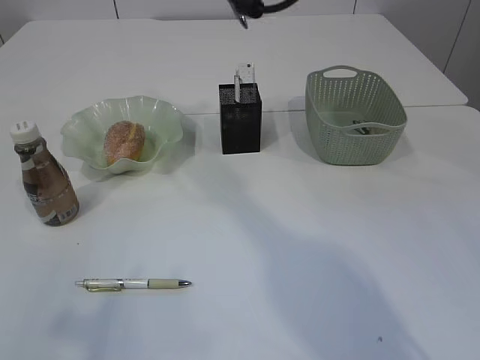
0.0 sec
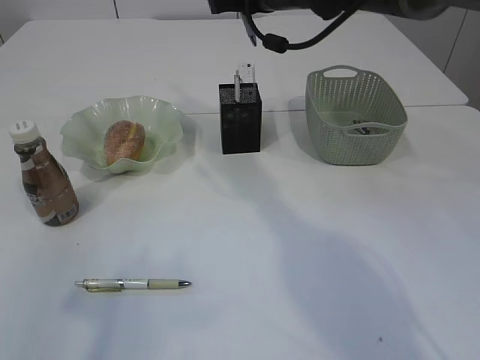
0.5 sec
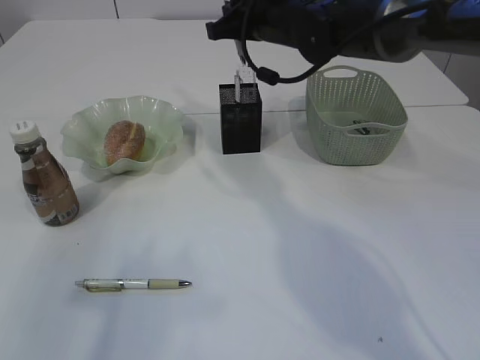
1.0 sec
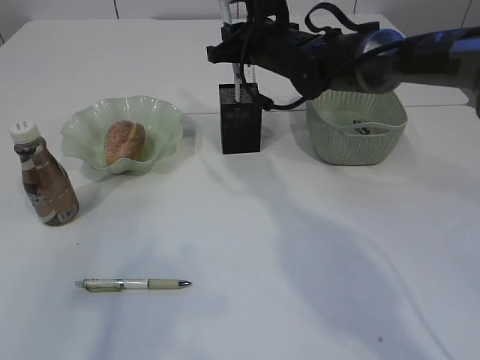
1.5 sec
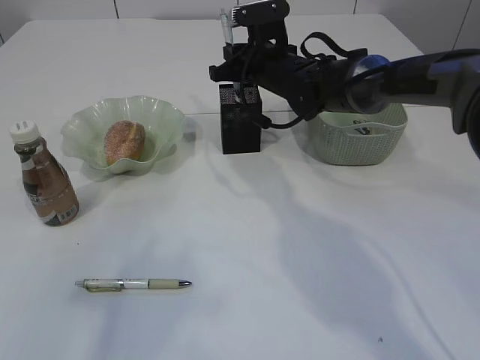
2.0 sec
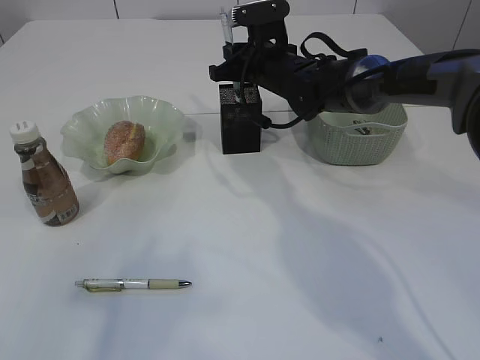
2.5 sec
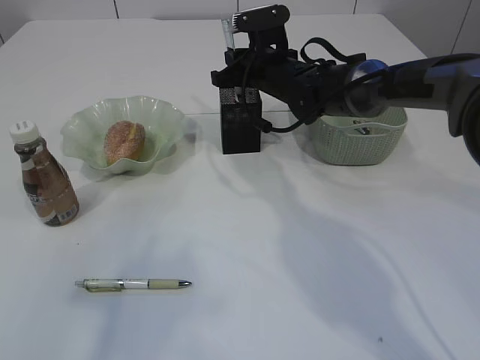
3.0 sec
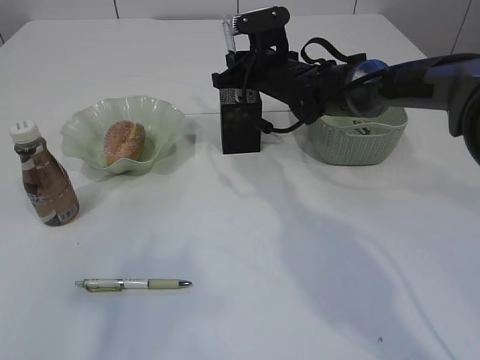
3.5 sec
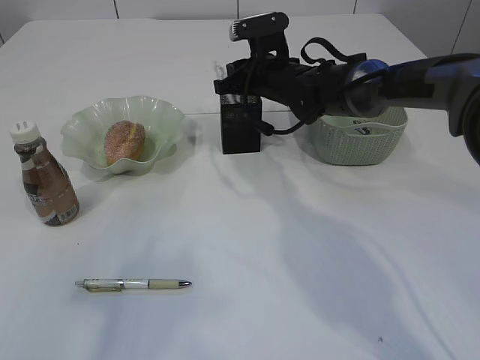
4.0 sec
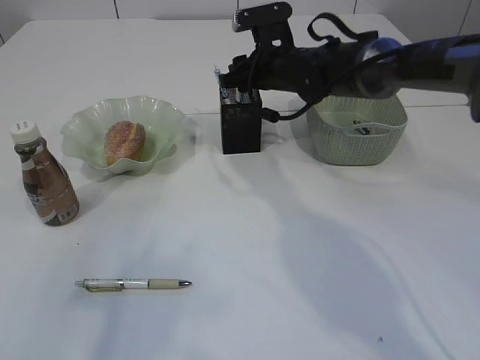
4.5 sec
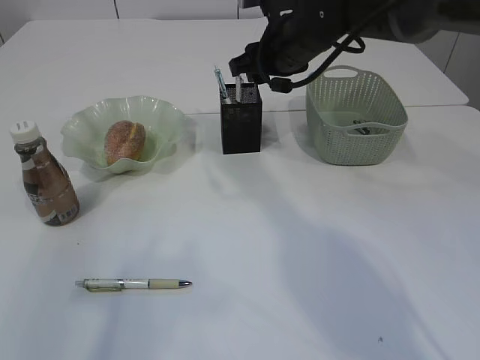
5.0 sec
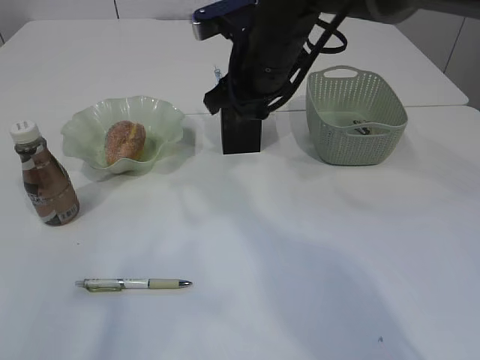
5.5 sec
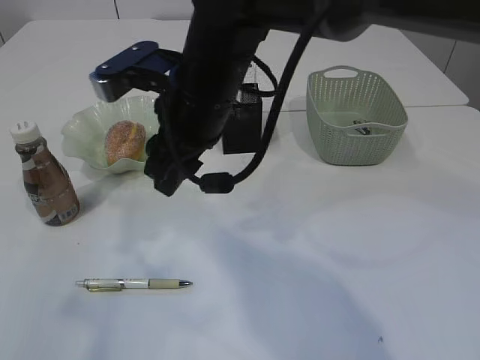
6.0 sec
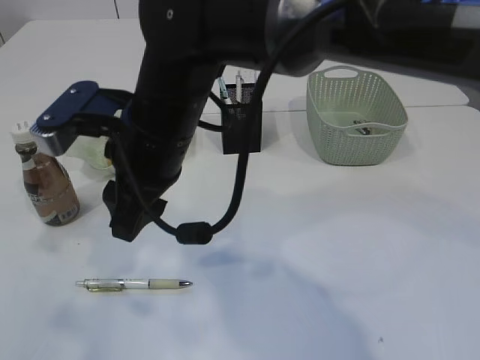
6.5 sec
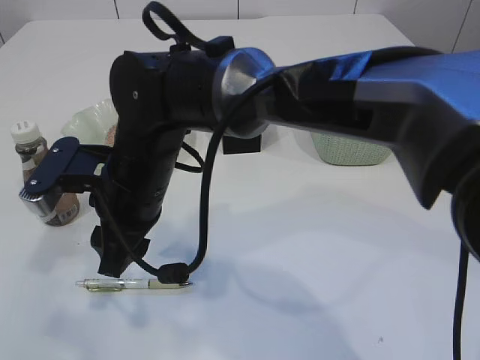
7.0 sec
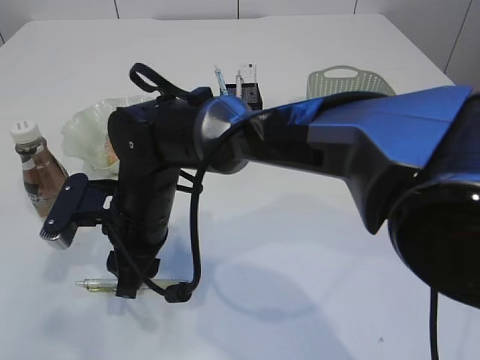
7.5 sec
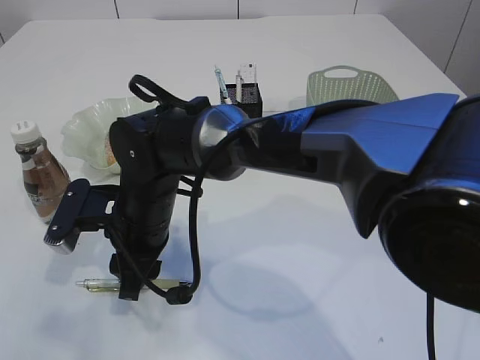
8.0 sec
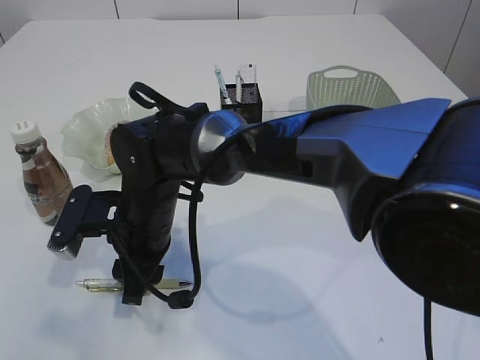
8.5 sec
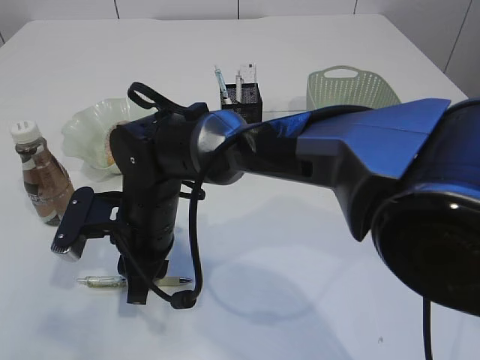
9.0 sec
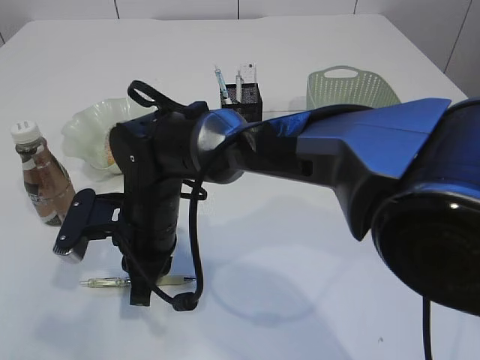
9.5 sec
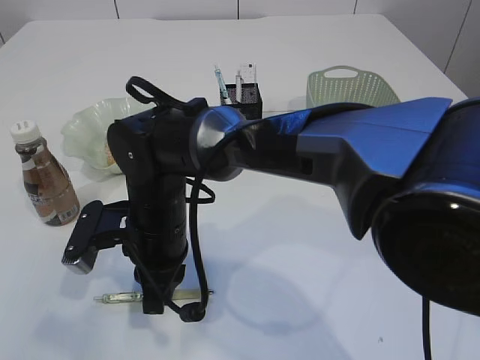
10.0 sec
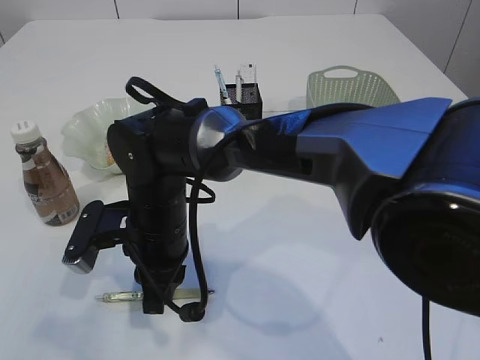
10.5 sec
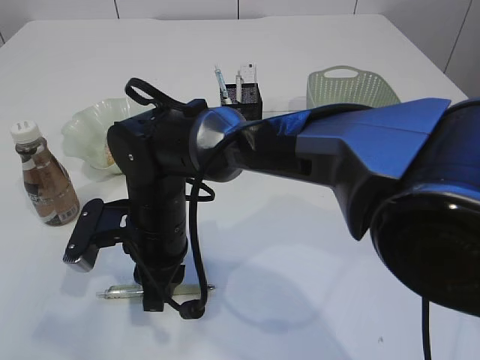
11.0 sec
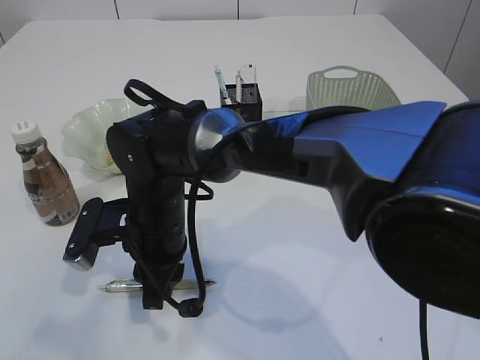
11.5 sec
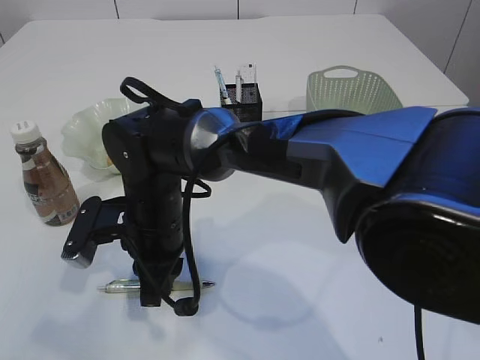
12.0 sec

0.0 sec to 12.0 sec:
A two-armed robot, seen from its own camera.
Step, 0.0 sec to 5.0 sec: Place the pen into the pen holder.
0.0 sec to 2.0 sec: The right gripper shifts approximately 20 cm downward and forward.
2.0 sec to 4.0 sec: The grippers move only a little.
4.0 sec to 6.0 sec: The right gripper is displaced backward, to the left and upward by roughly 20 cm.
6.0 sec to 8.0 sec: The right gripper travels downward and to the left by roughly 15 cm.
8.0 sec to 10.0 sec: The right gripper closes up.
10.0 sec to 12.0 sec: The two grippers keep their place.

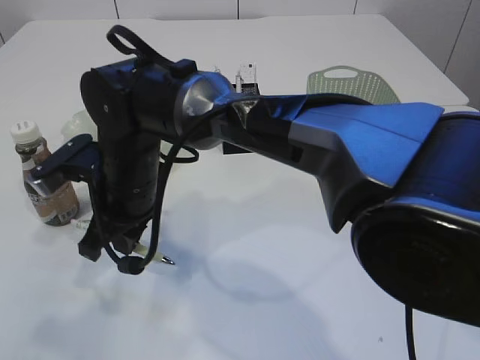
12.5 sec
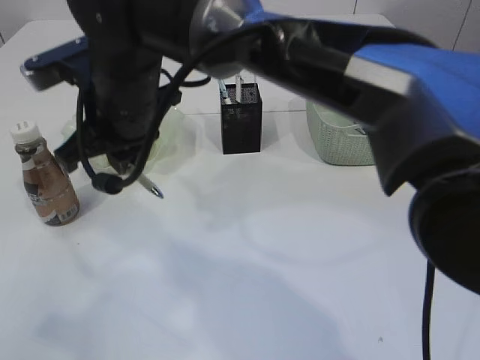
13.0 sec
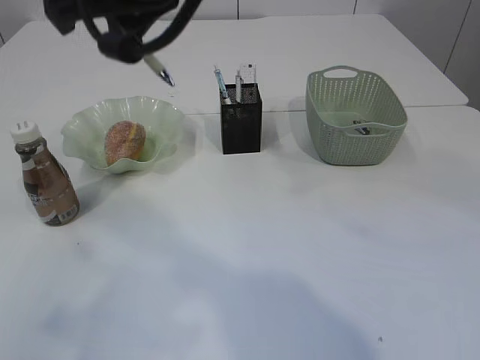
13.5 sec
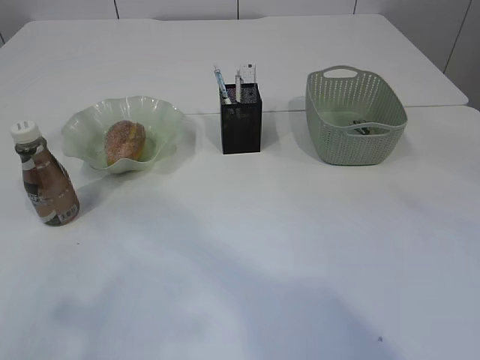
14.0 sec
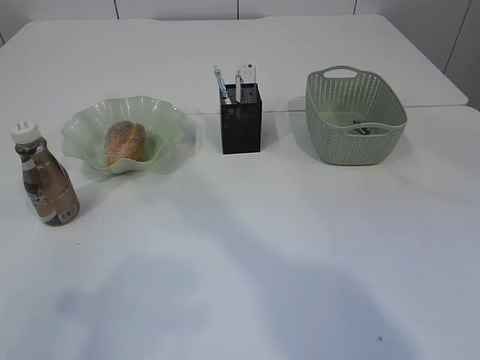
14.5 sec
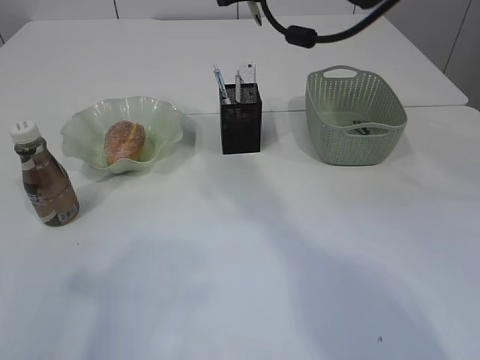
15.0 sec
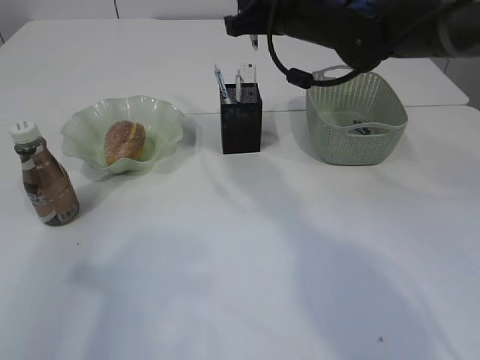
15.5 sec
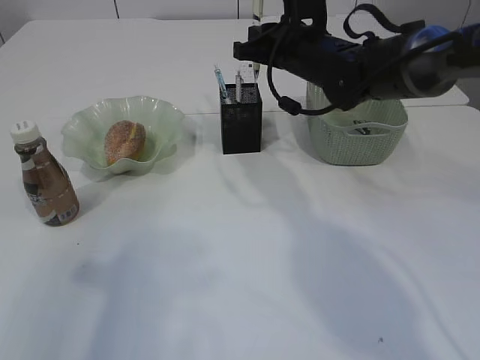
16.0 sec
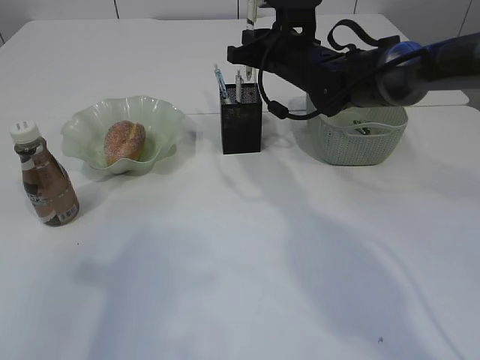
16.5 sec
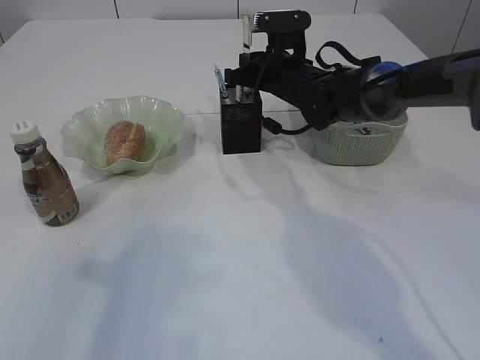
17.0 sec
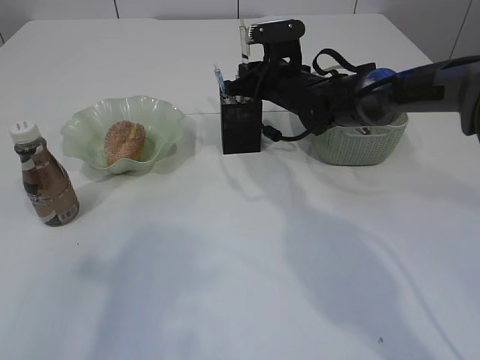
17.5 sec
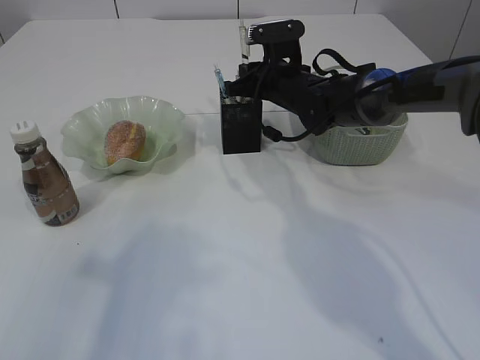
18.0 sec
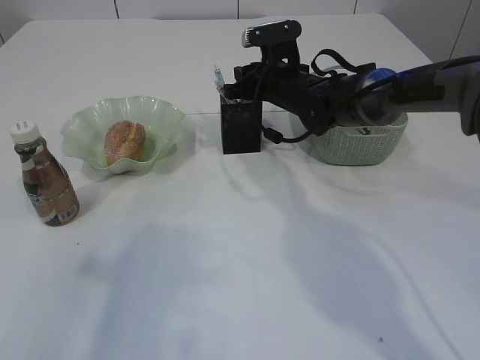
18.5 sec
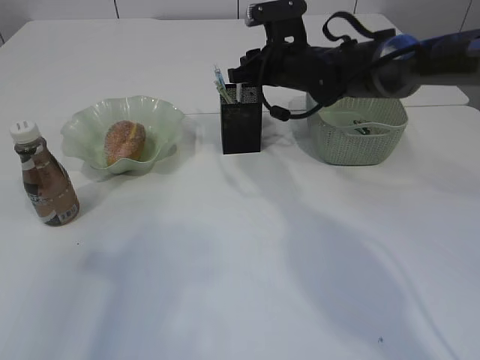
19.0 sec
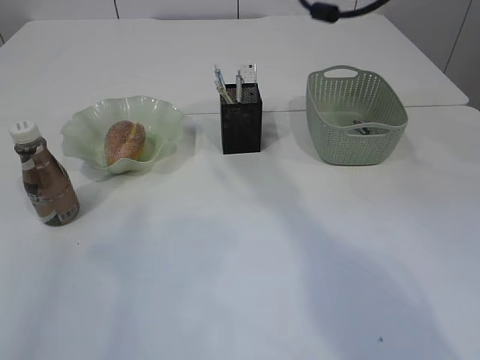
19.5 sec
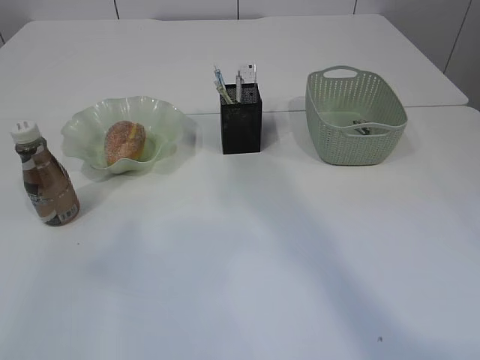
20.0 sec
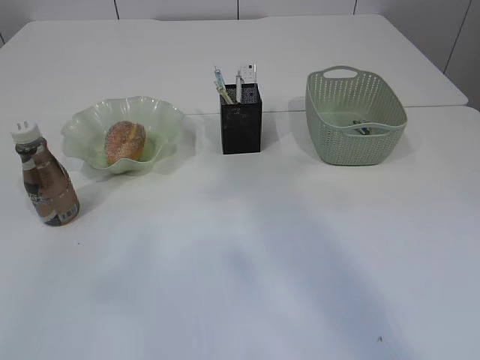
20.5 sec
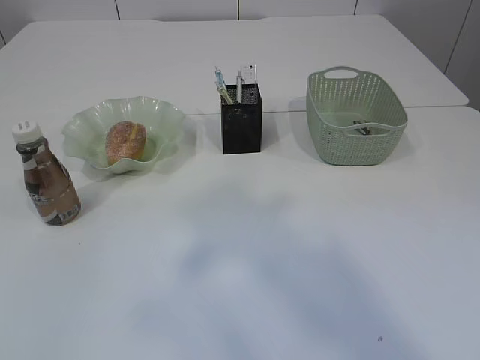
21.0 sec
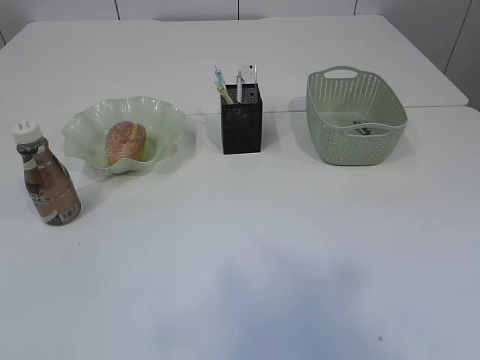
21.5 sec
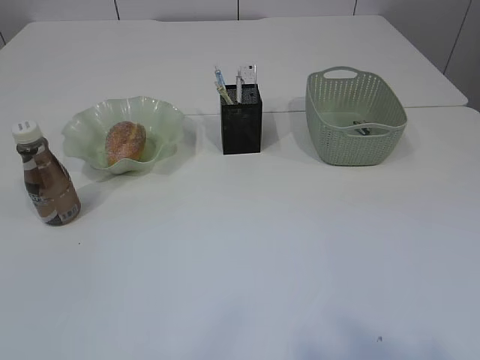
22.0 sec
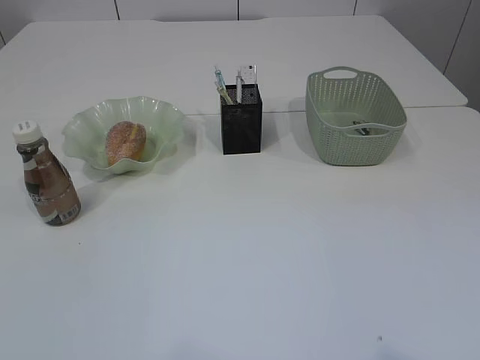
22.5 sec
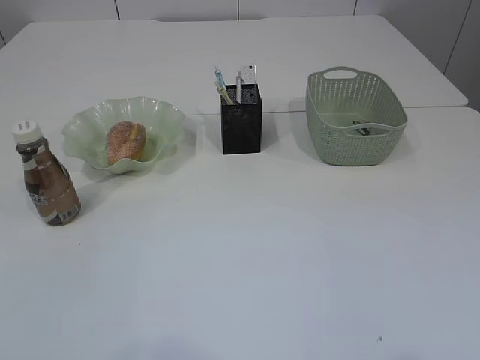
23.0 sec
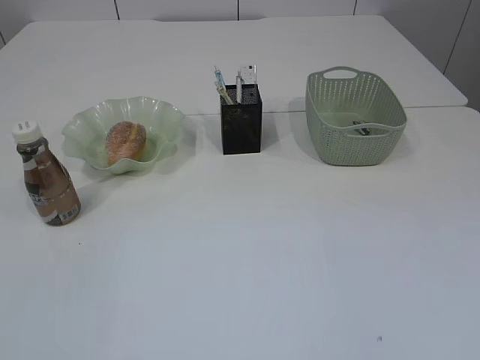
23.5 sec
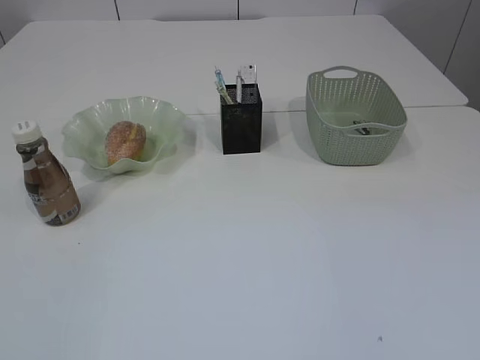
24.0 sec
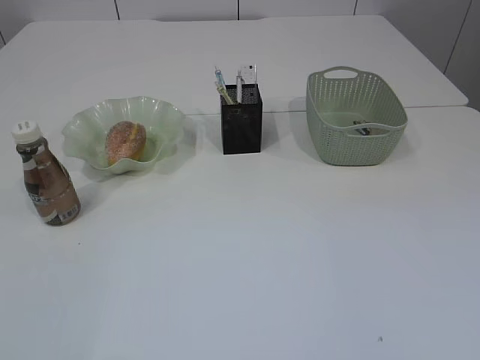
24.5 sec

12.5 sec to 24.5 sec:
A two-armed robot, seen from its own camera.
Step, 13.5 sec to 19.0 sec: Place the pen into the pen holder.
12.5 sec to 14.5 sec: The right gripper goes about 30 cm upward and to the right.
14.5 sec to 16.5 sec: The right gripper heads downward and forward, covering approximately 25 cm.
16.5 sec to 18.5 sec: The right gripper changes place by about 5 cm, and opens up.
18.5 sec to 20.5 sec: The right gripper goes roughly 50 cm upward and backward, while the left gripper heads upward and backward, covering roughly 20 cm, and opens its fingers.

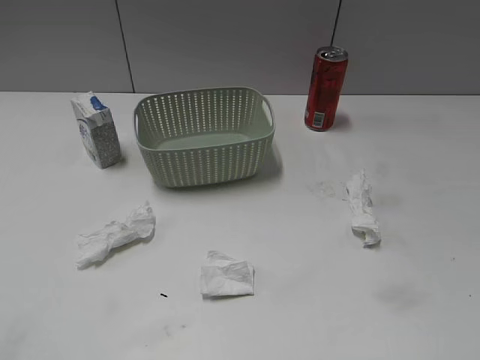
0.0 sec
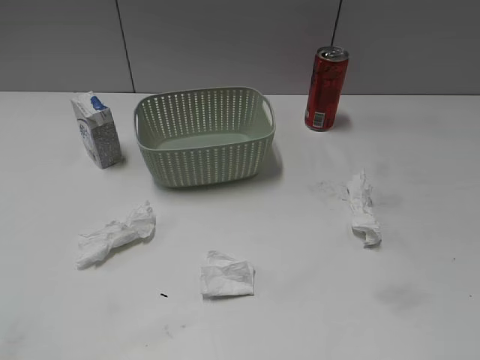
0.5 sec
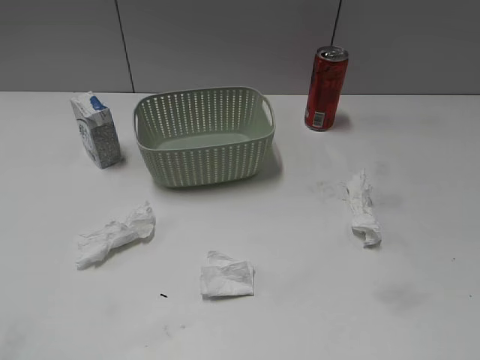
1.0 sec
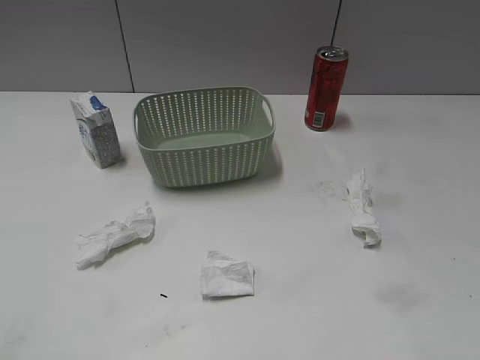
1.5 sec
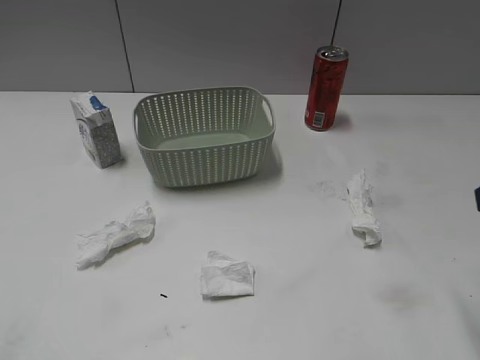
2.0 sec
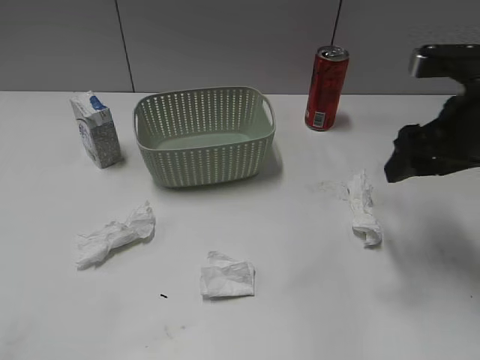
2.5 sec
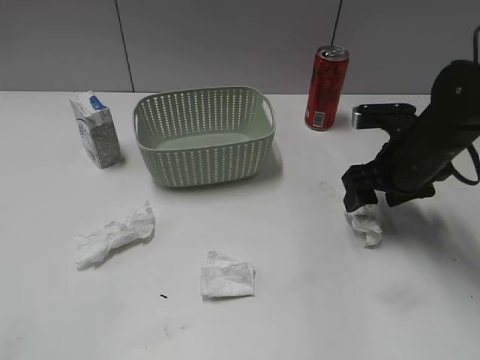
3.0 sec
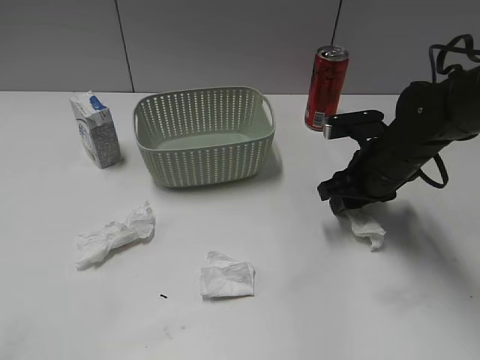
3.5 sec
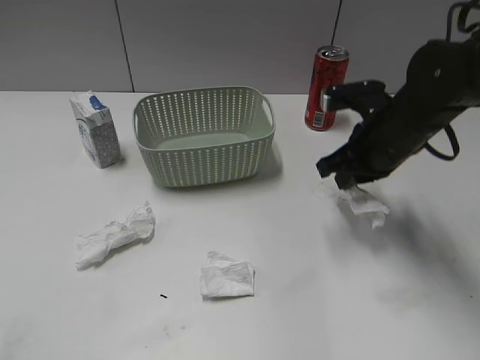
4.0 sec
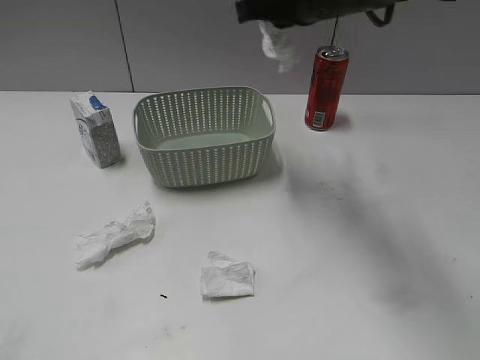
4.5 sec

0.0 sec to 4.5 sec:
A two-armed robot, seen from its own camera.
Step, 2.0 sec to 3.5 sec: Grasp the waste paper with right gripper.
2.0 sec to 4.5 sec: The right gripper moves to the left and forward, about 30 cm, and closes up.
